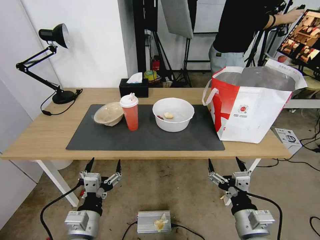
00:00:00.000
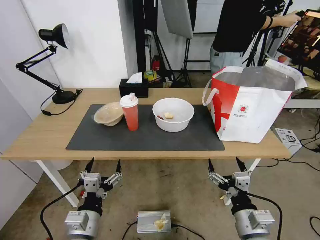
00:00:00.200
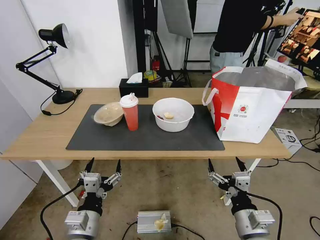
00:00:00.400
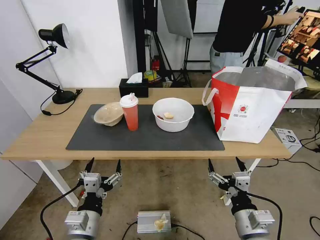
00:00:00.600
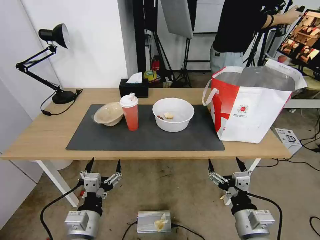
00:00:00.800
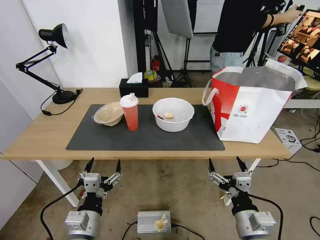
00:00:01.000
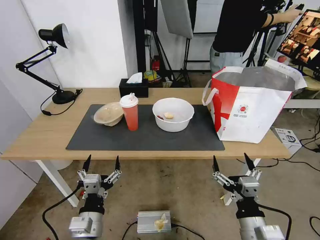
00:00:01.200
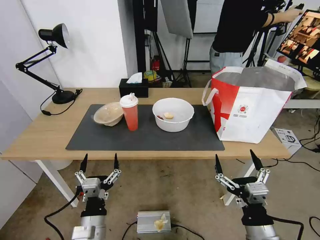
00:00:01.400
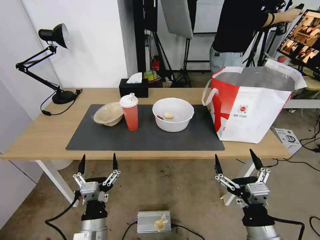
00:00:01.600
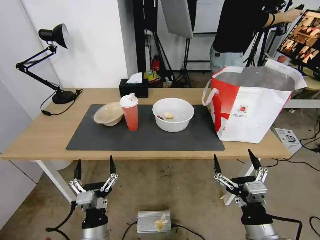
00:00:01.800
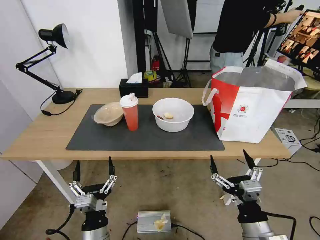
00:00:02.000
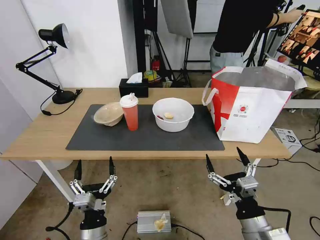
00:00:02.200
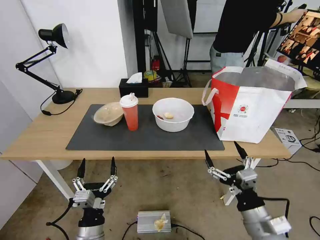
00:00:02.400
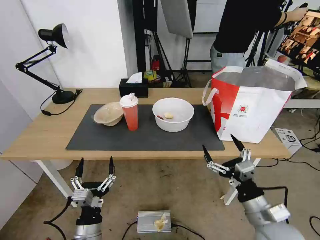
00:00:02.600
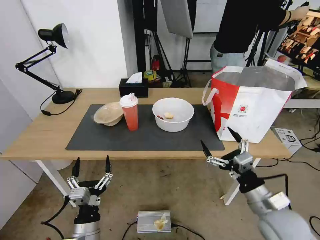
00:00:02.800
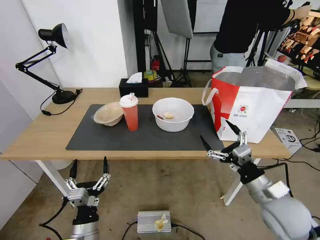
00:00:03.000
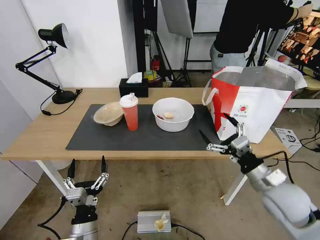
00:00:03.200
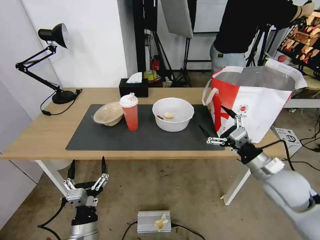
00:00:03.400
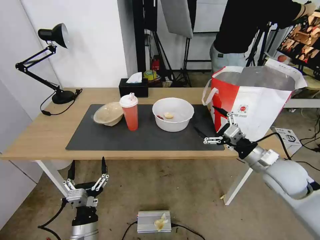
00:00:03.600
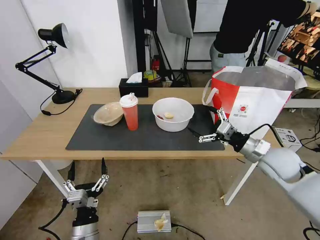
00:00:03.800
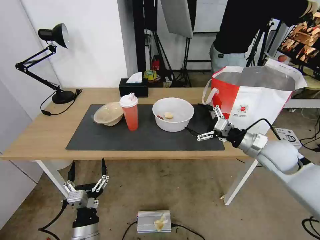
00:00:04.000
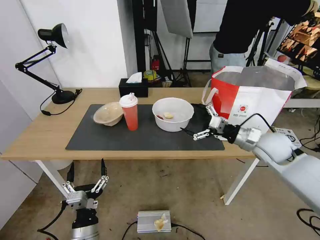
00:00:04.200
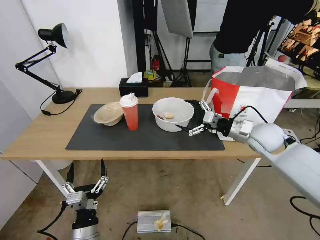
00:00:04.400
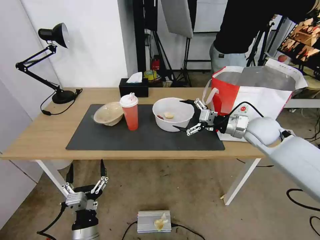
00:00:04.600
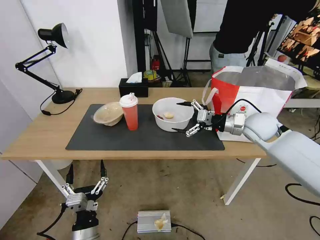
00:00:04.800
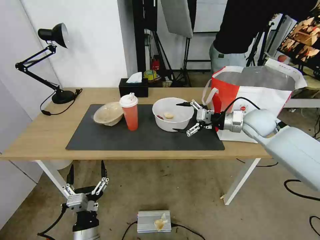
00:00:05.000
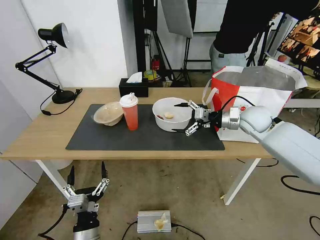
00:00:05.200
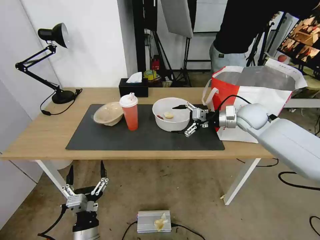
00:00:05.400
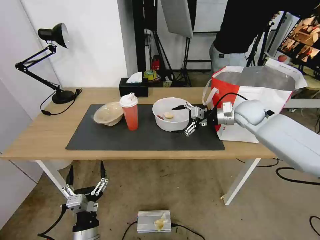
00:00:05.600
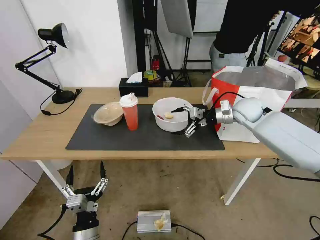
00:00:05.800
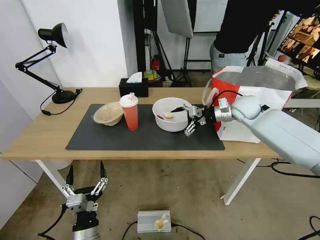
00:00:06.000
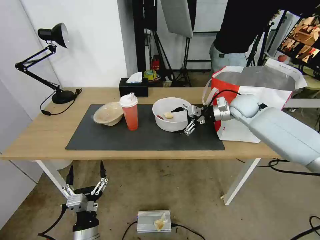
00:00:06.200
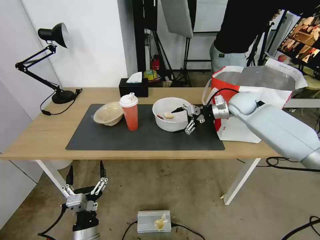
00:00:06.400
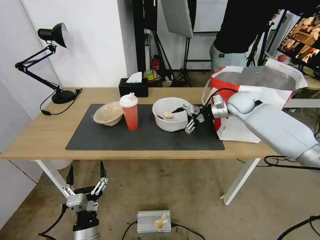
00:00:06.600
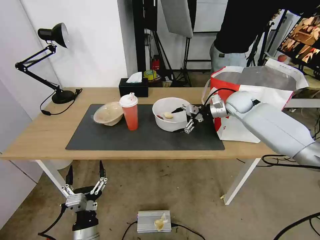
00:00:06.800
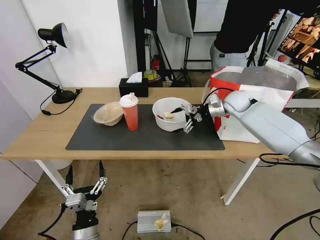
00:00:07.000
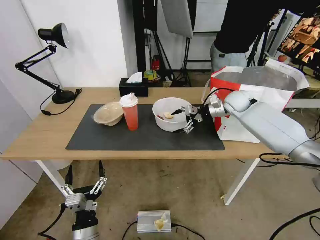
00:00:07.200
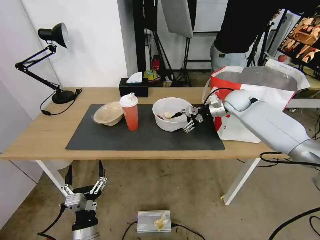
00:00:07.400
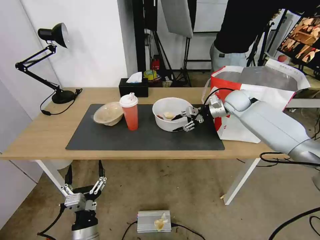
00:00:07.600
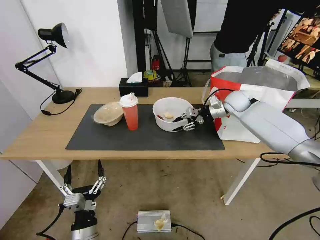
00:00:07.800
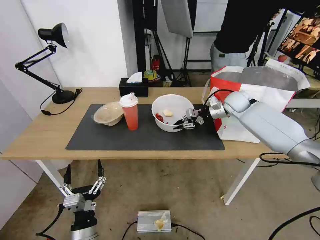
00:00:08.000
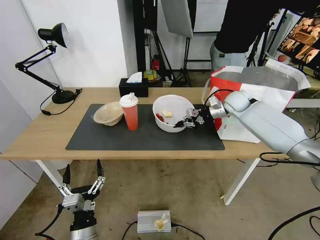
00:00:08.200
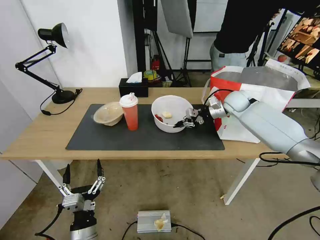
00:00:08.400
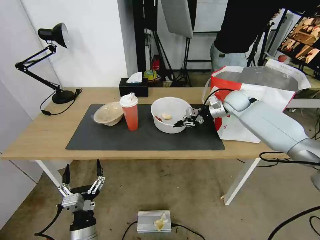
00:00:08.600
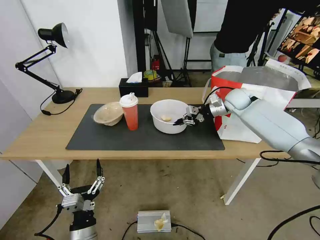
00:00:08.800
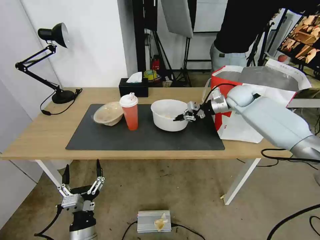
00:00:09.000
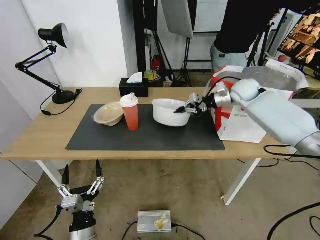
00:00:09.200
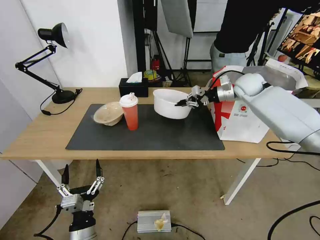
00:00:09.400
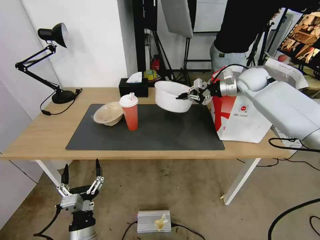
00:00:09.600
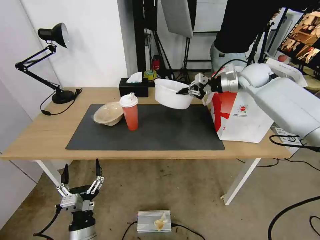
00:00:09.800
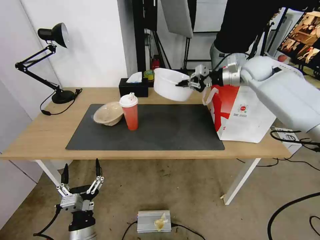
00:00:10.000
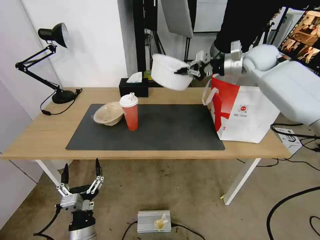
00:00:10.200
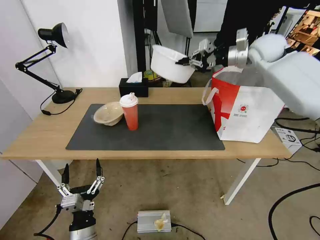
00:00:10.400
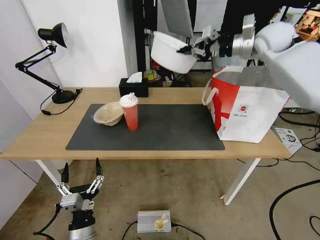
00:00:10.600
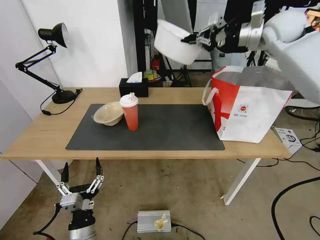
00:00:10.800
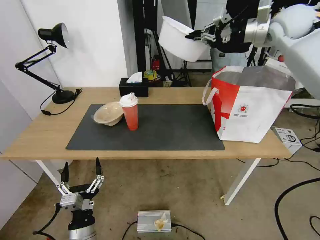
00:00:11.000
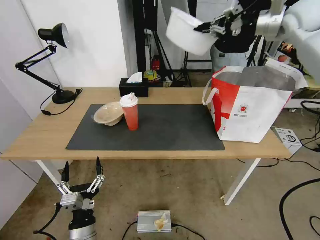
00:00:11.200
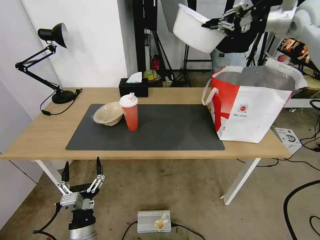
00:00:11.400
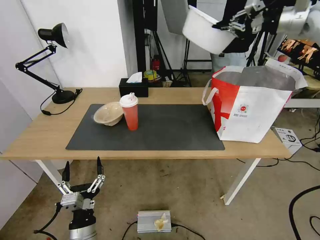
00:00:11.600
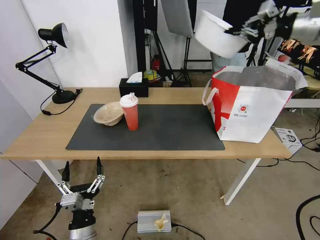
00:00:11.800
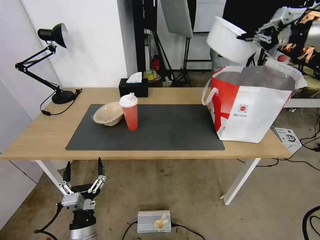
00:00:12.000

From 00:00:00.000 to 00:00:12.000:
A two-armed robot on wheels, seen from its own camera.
Task of the whole recording: Pick up the trash from the table and place it into the takeout bag.
From 00:00:01.600 to 00:00:03.000: The right gripper heads forward and to the right, covering some 15 cm.
From 00:00:03.000 to 00:00:04.400: The right gripper travels forward by about 20 cm.
From 00:00:04.400 to 00:00:06.000: The right gripper goes approximately 10 cm forward.
From 00:00:06.000 to 00:00:07.600: The right gripper travels forward by approximately 5 cm, and closes up.
From 00:00:07.600 to 00:00:09.000: The right gripper closes its fingers.
From 00:00:09.000 to 00:00:10.400: The right gripper moves upward, approximately 15 cm.
From 00:00:10.400 to 00:00:12.000: The right gripper heads to the right, upward and backward, covering some 20 cm.

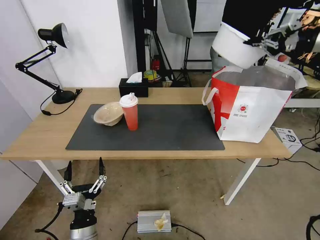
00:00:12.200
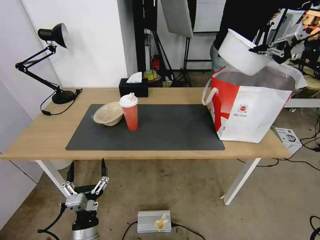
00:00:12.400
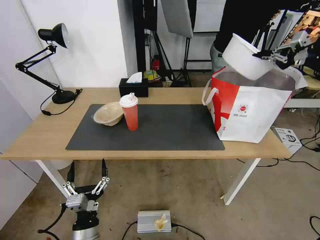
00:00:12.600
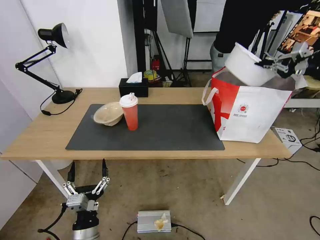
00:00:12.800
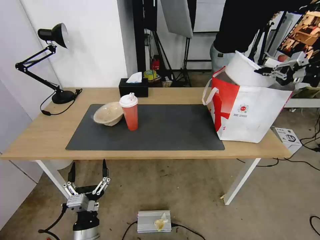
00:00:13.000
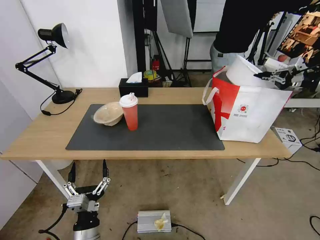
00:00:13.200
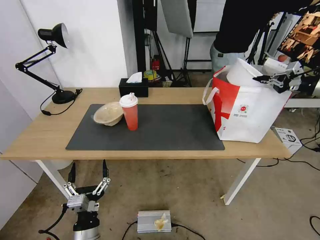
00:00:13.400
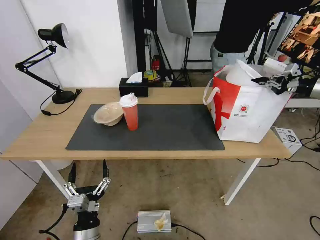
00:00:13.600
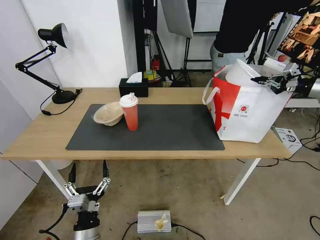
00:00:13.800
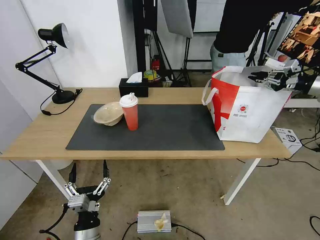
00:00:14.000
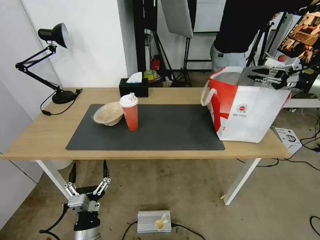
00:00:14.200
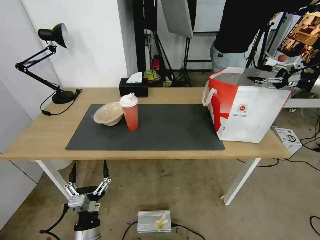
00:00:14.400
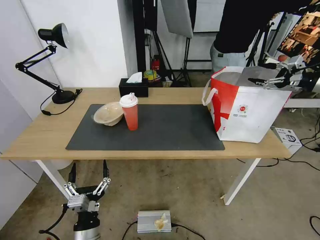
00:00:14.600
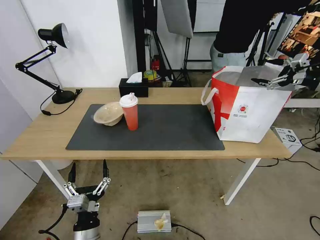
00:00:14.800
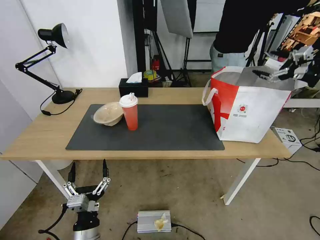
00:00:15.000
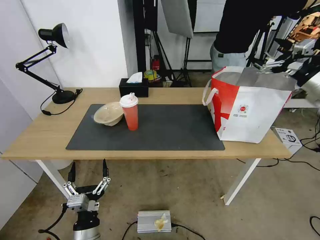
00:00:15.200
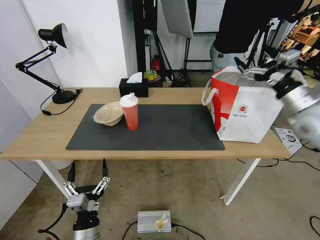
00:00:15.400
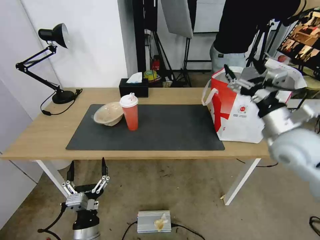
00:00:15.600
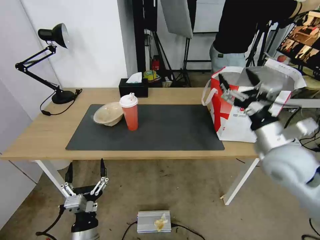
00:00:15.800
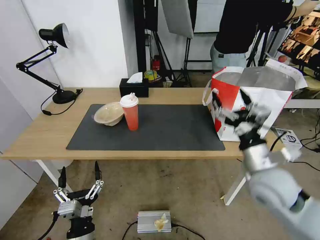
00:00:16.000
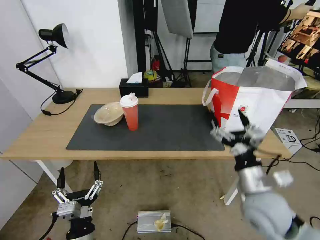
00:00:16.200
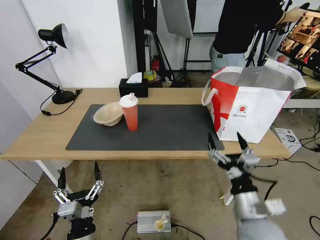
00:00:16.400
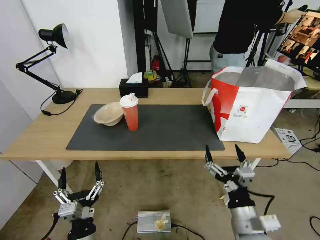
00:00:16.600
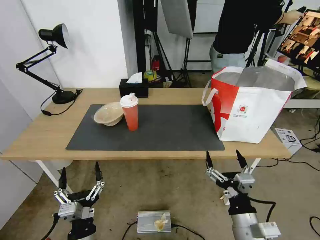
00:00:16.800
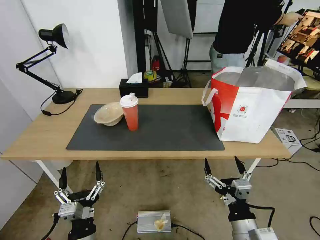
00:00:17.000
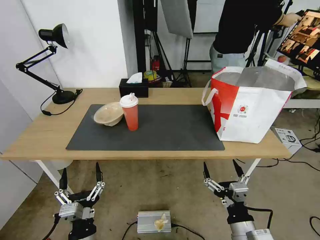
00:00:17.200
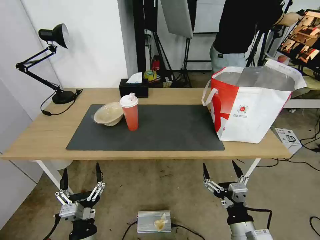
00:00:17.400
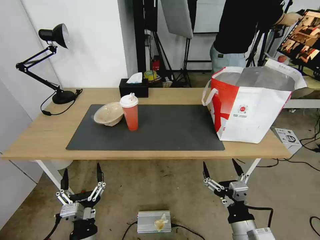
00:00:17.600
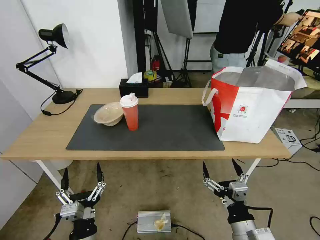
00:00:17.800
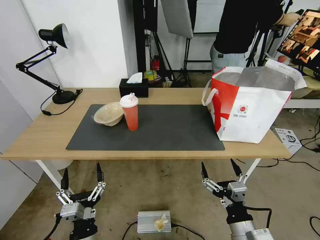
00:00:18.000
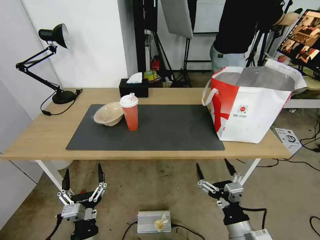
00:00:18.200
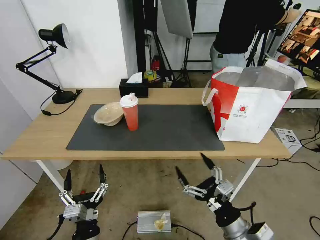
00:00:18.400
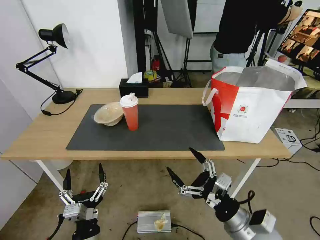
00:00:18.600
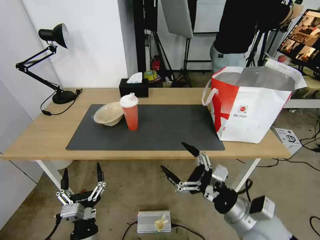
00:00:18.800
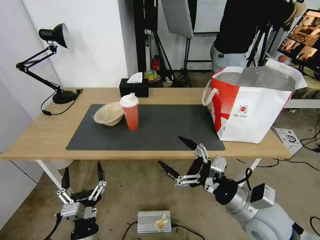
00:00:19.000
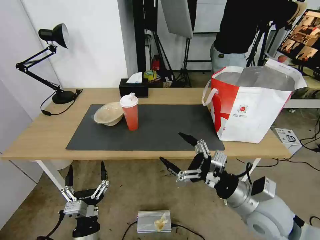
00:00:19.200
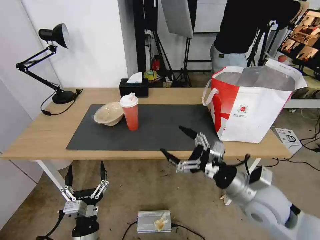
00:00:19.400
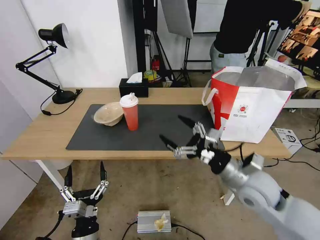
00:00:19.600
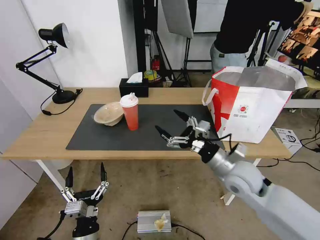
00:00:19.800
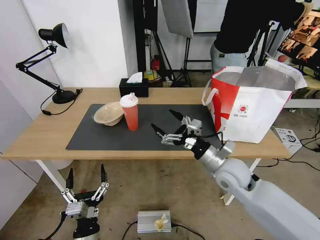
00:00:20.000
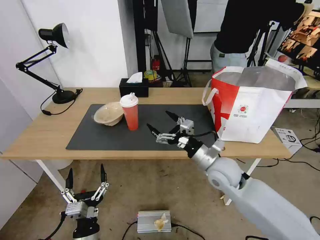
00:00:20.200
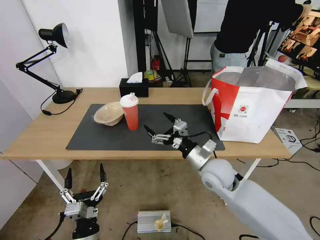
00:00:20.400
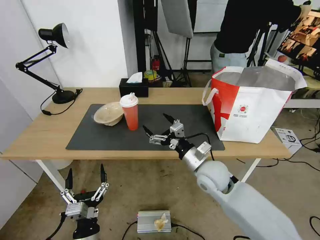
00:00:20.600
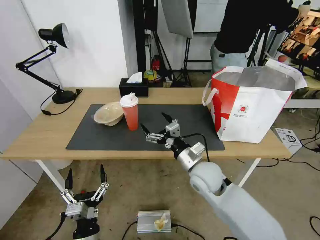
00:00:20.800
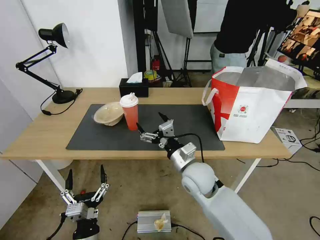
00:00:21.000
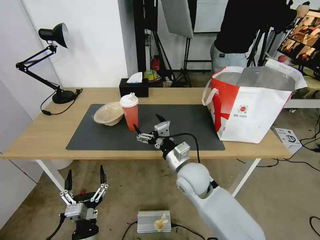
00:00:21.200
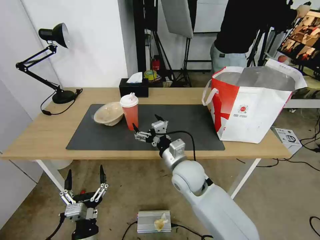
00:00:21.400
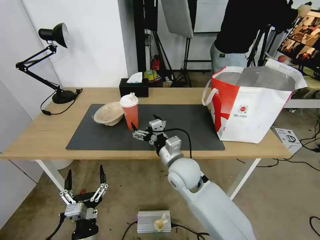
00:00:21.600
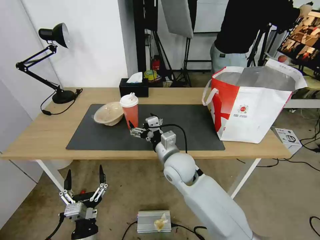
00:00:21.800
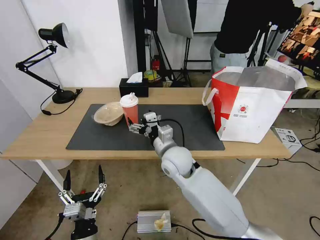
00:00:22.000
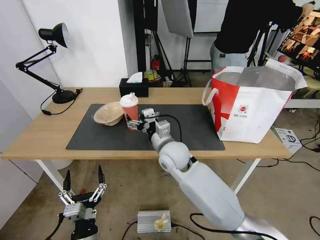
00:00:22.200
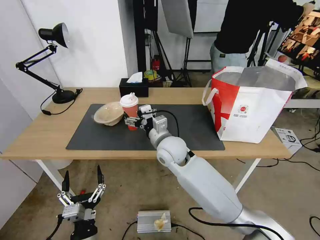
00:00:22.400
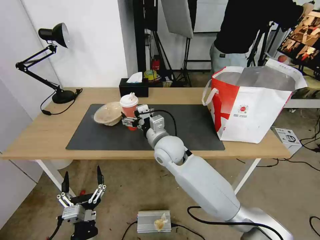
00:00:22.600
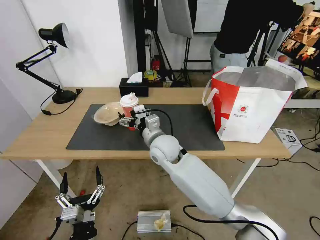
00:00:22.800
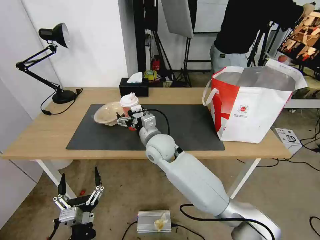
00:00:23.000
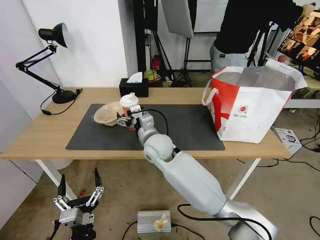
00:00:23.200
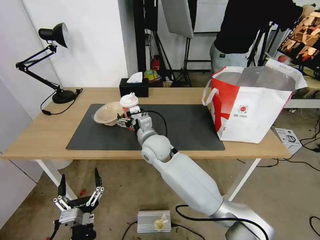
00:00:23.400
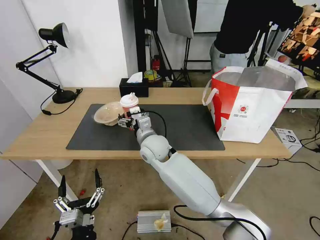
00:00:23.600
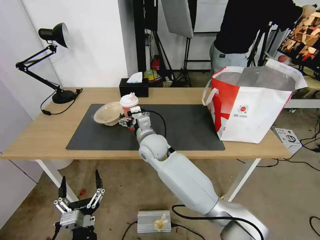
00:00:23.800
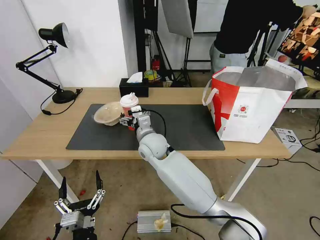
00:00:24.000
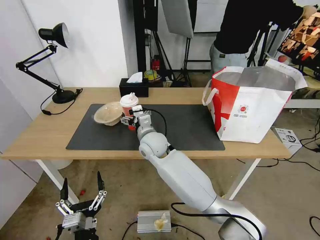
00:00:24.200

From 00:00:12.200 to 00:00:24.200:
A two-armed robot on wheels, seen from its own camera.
Task of the whole recording: Pick up the trash from the table and place it into the takeout bag.
From 00:00:12.200 to 00:00:13.800: The right gripper moves downward and to the right, some 15 cm.
From 00:00:13.800 to 00:00:15.200: The right gripper moves to the left, approximately 10 cm, and opens up.
From 00:00:15.200 to 00:00:16.600: The right gripper moves backward, to the left and downward, some 50 cm.
From 00:00:16.600 to 00:00:18.200: There are only small adjustments of the grippers.
From 00:00:18.200 to 00:00:19.800: The right gripper moves forward and upward, about 20 cm.
From 00:00:19.800 to 00:00:21.200: The right gripper travels to the left by about 15 cm.
From 00:00:21.200 to 00:00:22.600: The right gripper is displaced forward and to the left by about 10 cm.
From 00:00:22.600 to 00:00:24.200: The right gripper is displaced to the left by some 5 cm.
